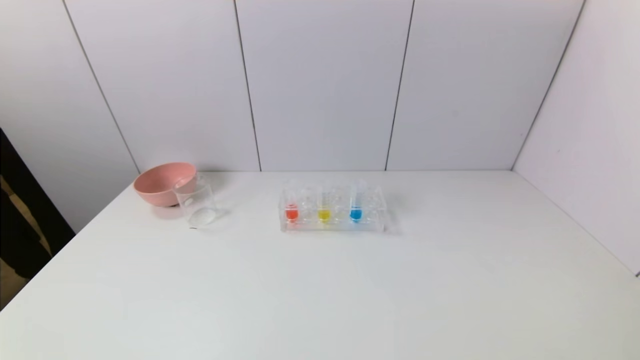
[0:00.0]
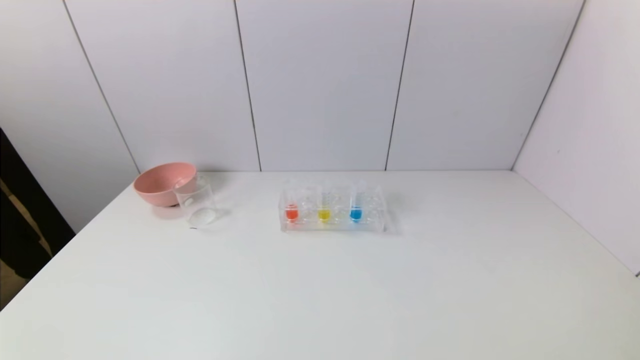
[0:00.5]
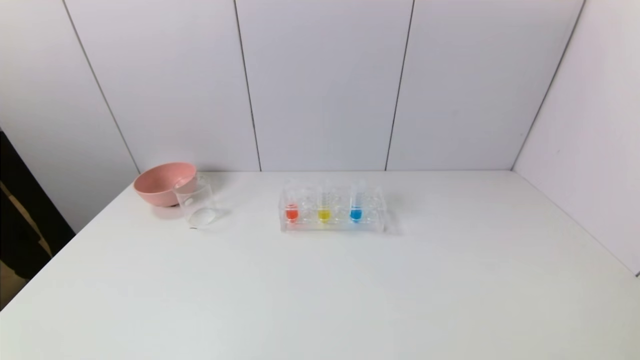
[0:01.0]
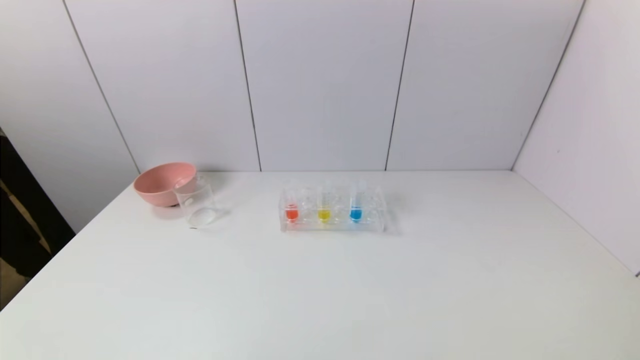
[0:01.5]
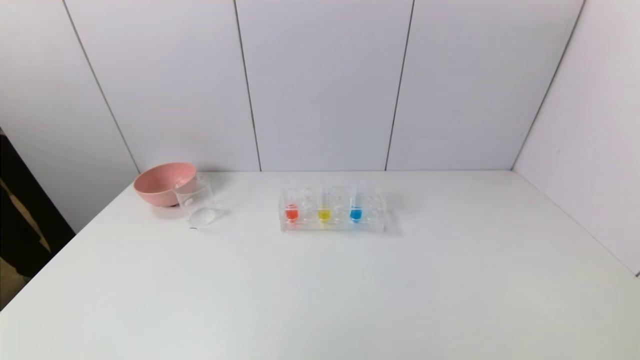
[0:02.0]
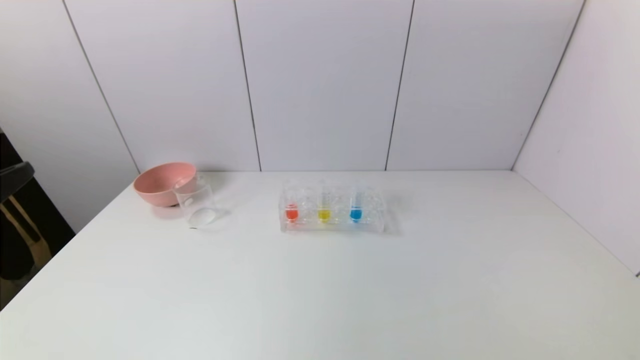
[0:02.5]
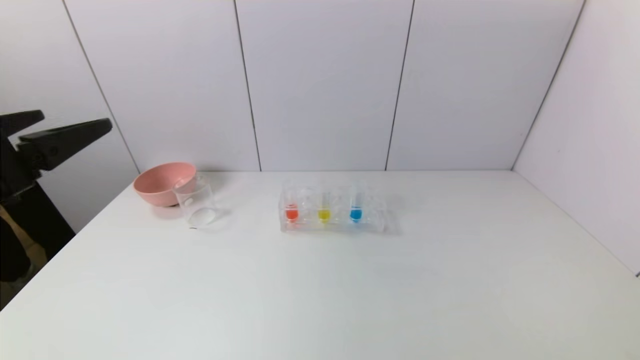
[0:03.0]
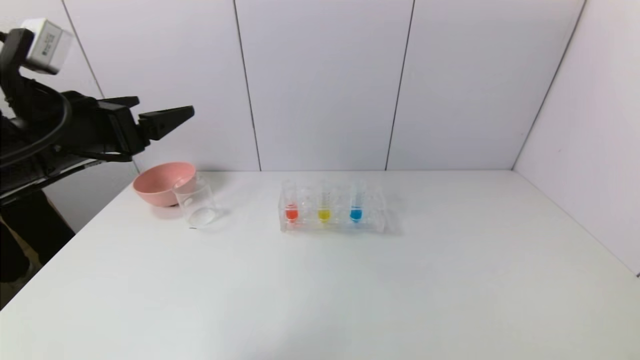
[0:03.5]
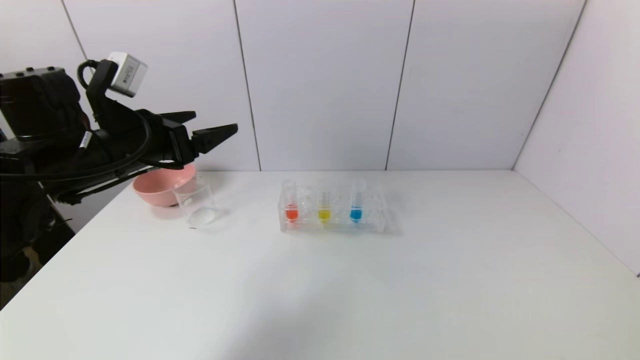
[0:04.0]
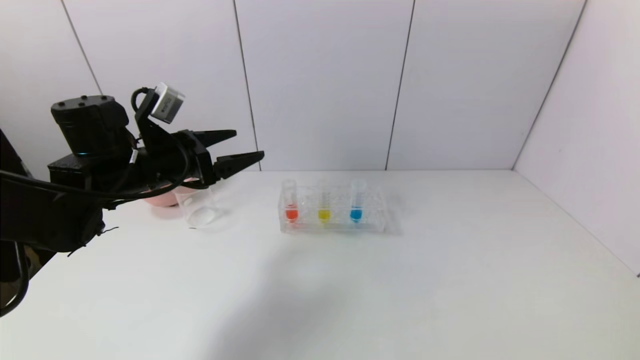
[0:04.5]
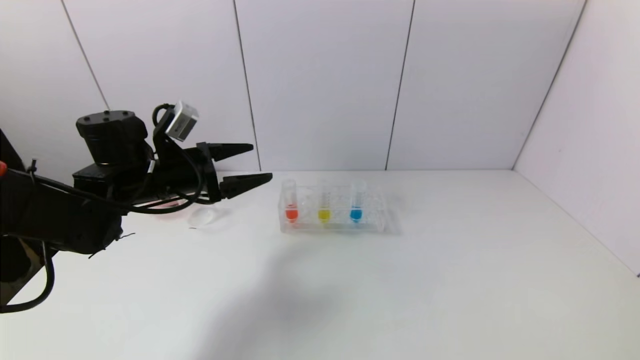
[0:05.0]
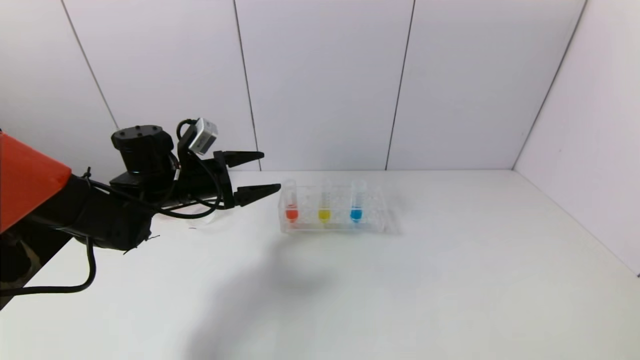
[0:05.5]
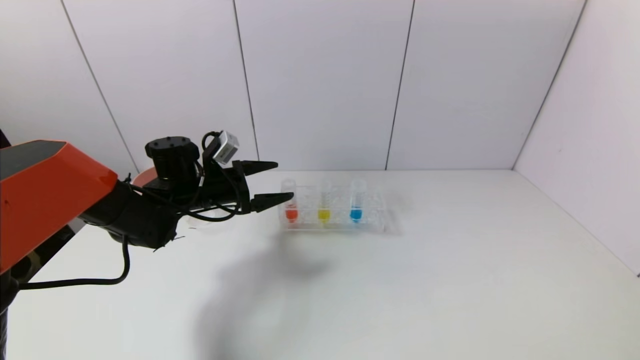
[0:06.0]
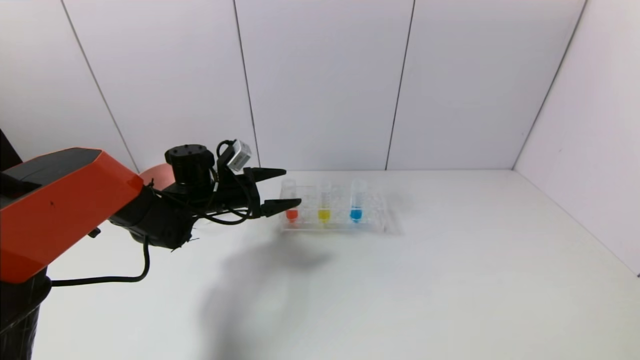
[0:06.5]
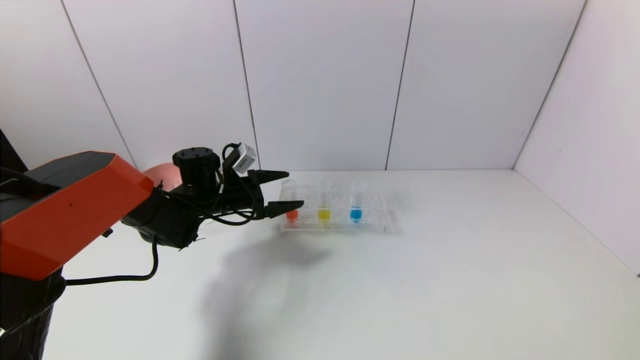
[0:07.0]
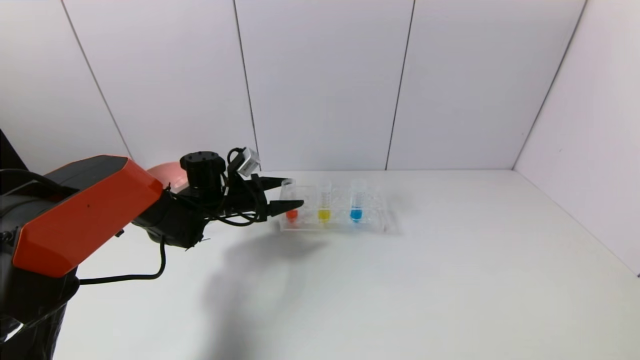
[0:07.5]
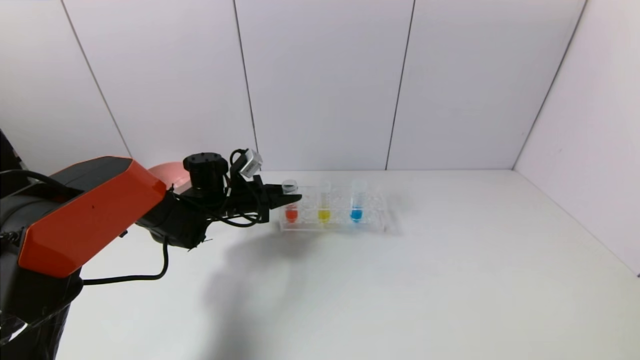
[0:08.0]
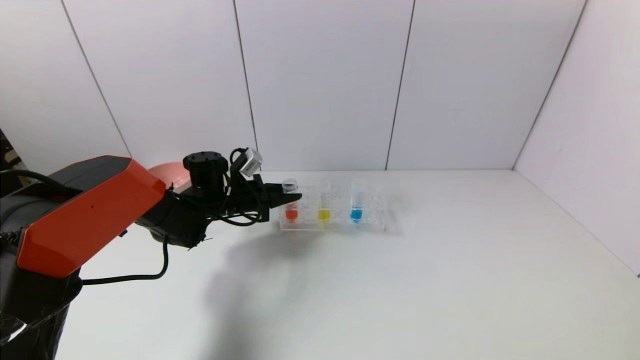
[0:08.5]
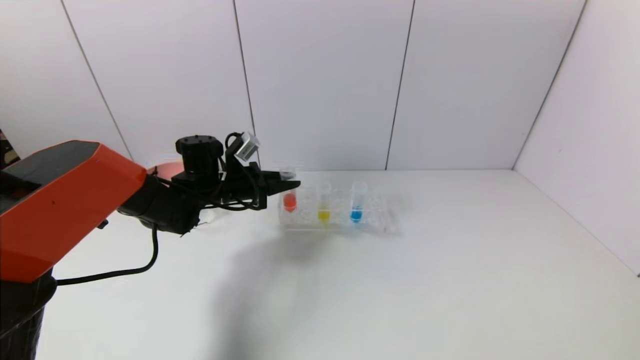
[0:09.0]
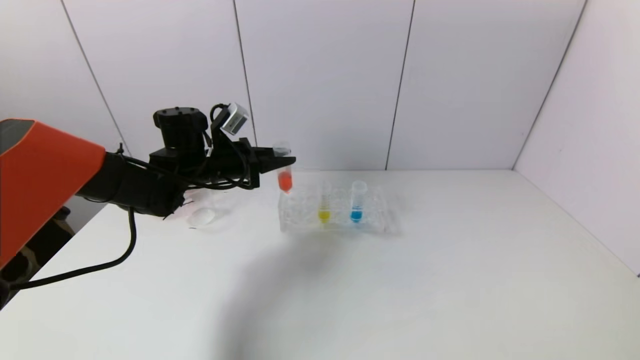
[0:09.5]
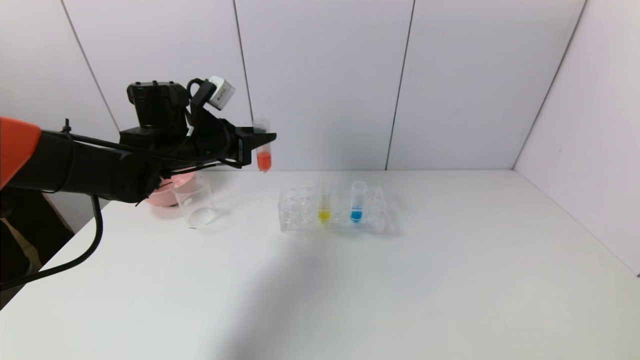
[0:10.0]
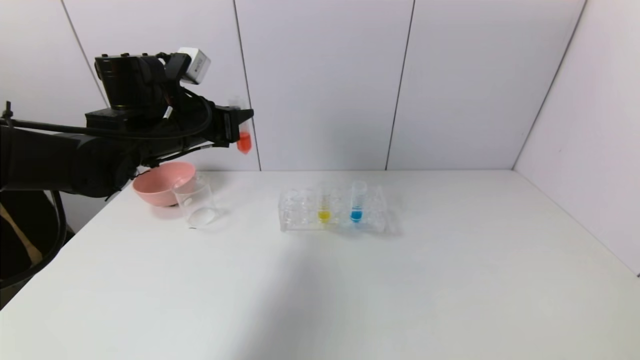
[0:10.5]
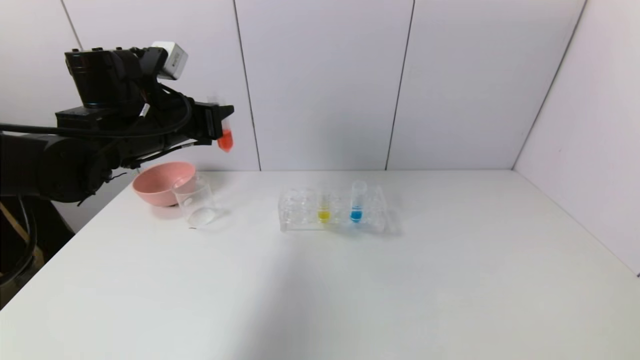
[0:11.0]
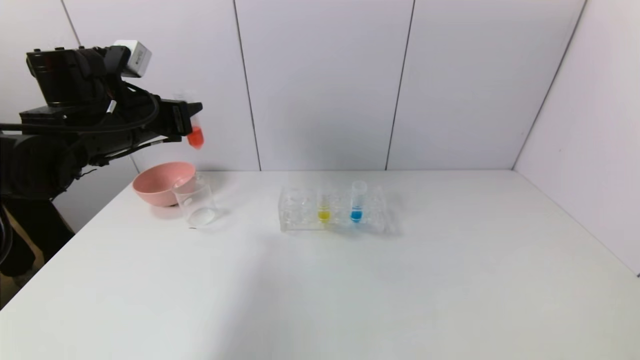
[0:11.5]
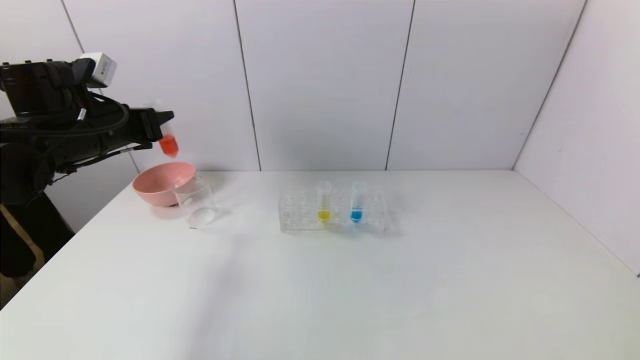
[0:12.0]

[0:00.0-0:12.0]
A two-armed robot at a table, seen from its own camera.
Task of the whole recording: pick up the test tube with red pigment and the test tube with blue pigment by grippers and pour them into the container.
Step, 0.0 to 8.0 s: Grasp the red reagent with the left gripper.
2.0 to 4.0 s: The left gripper goes some 30 cm forward.
4.0 to 6.0 s: The left gripper moves downward and forward, roughly 15 cm.
6.0 to 8.0 s: The left gripper ends up roughly 5 cm from where it was, and closes up.
8.0 to 10.0 s: The left gripper heads upward, covering about 15 cm.
10.0 to 12.0 s: The left gripper goes about 10 cm to the left.

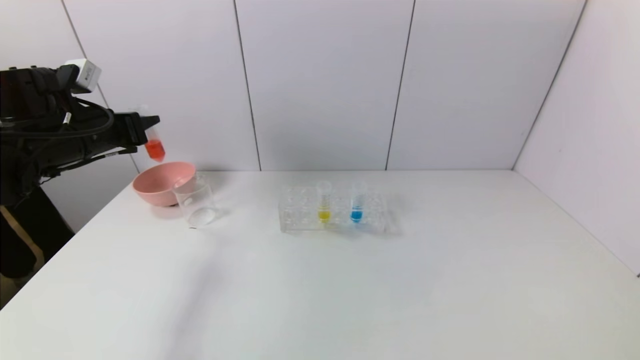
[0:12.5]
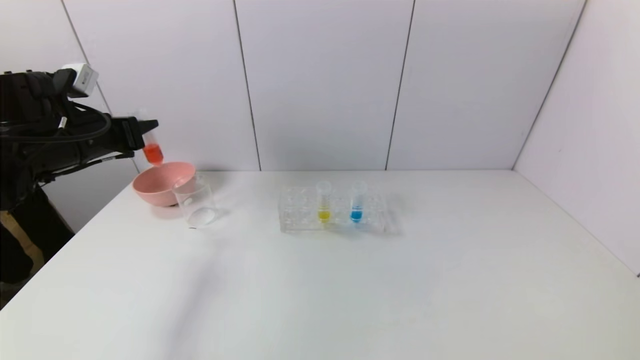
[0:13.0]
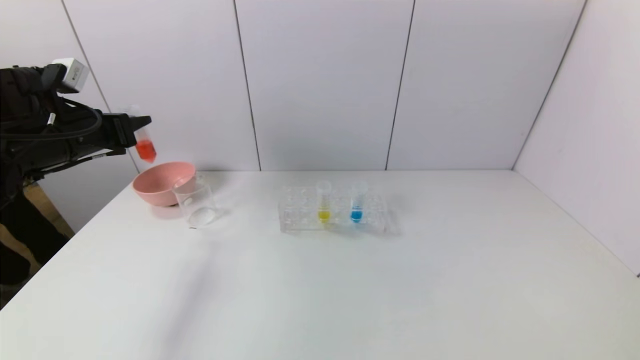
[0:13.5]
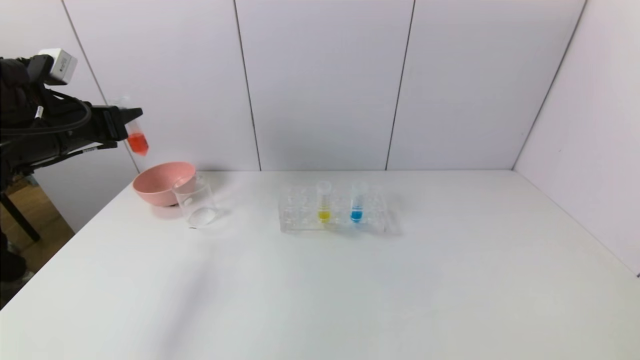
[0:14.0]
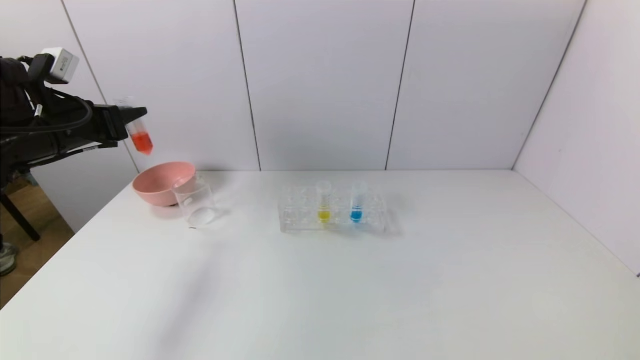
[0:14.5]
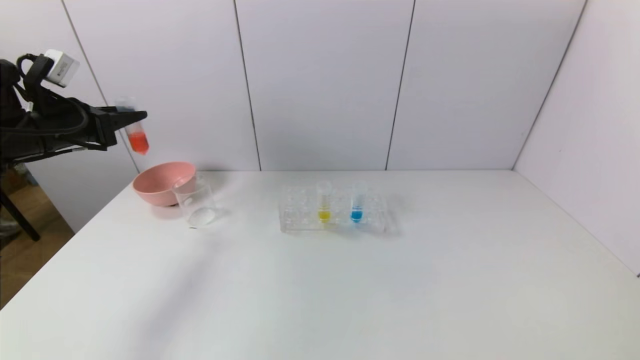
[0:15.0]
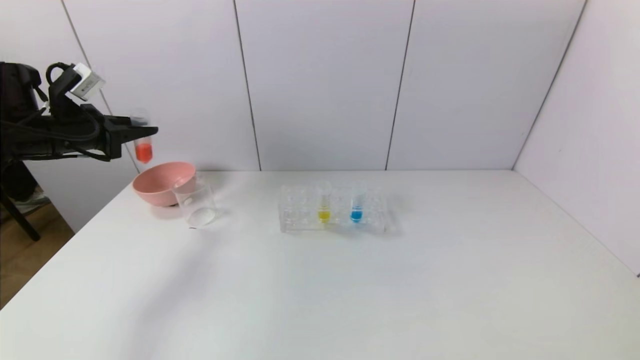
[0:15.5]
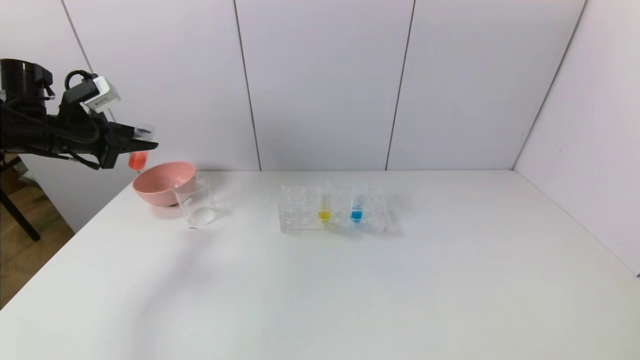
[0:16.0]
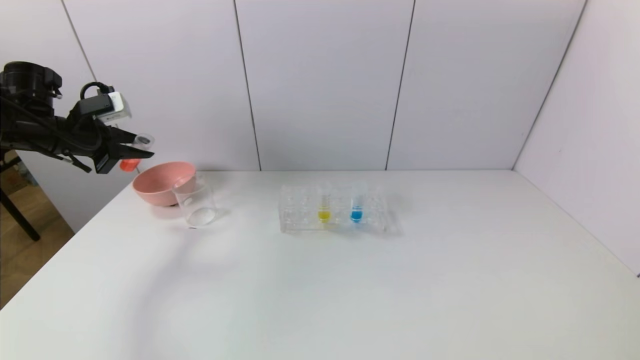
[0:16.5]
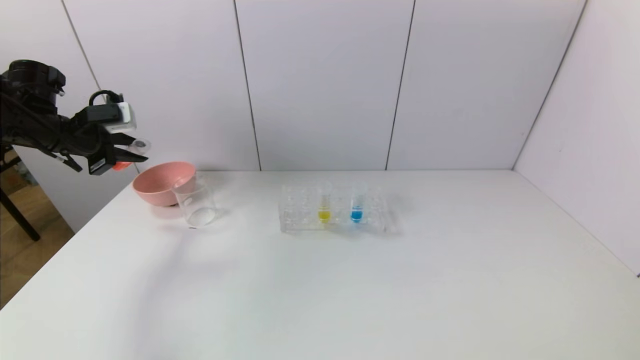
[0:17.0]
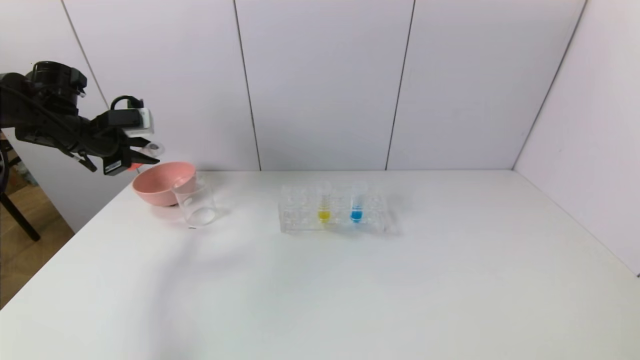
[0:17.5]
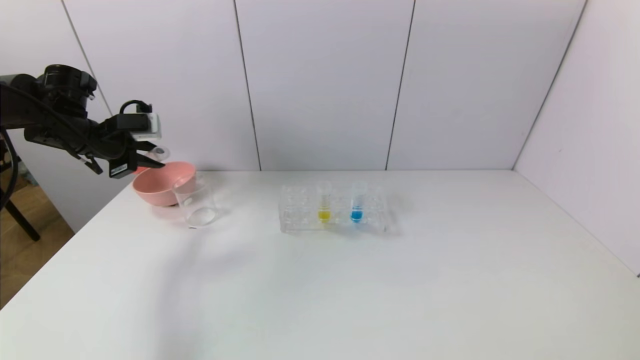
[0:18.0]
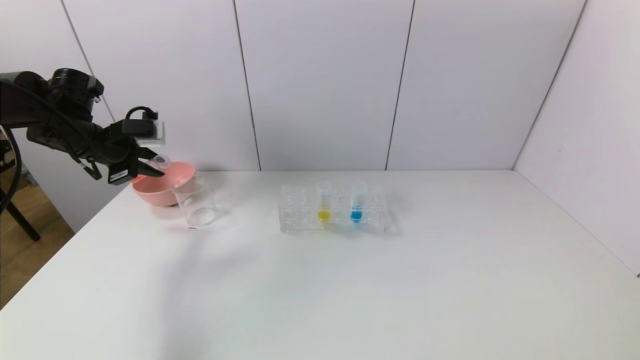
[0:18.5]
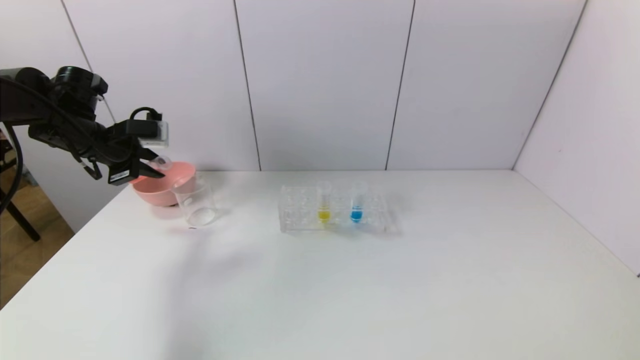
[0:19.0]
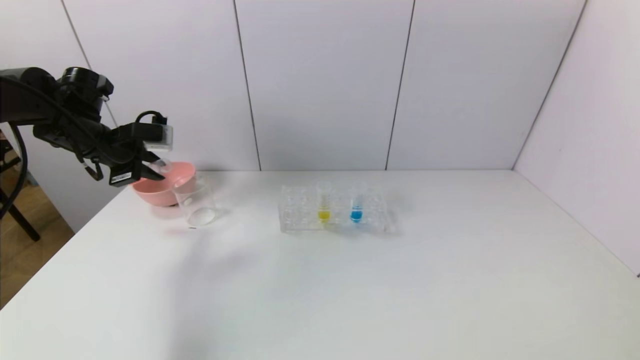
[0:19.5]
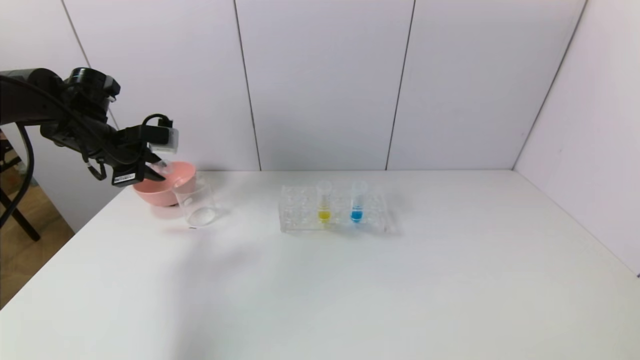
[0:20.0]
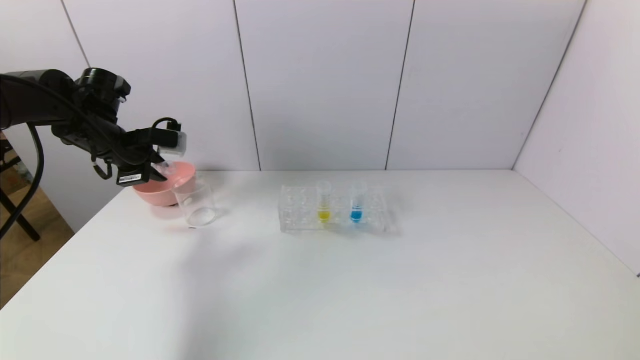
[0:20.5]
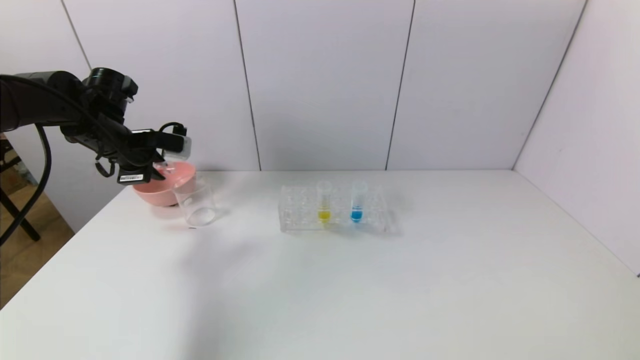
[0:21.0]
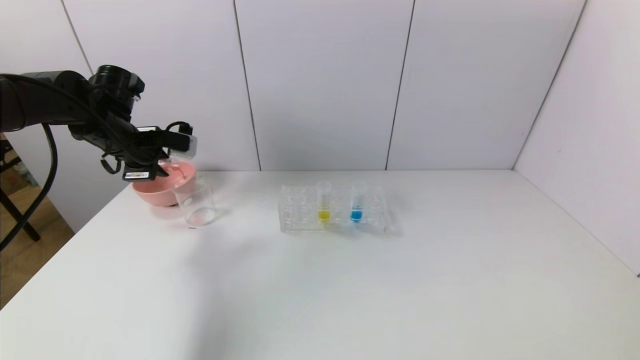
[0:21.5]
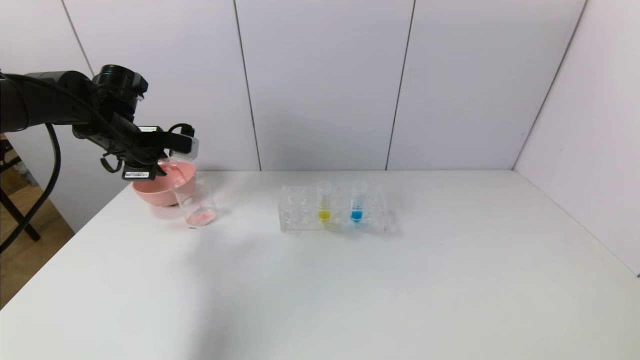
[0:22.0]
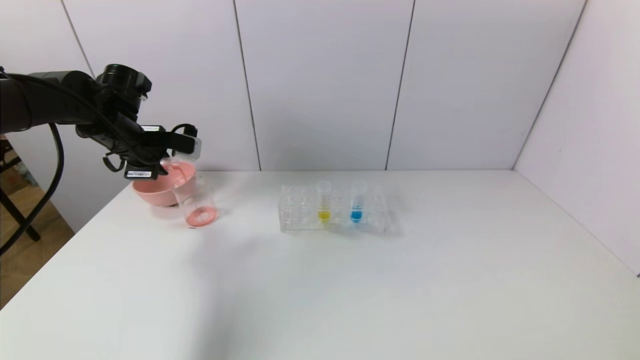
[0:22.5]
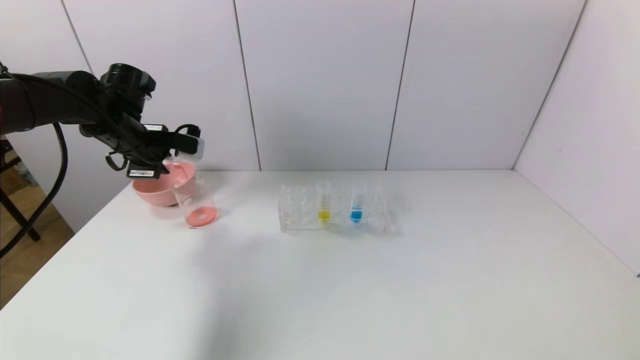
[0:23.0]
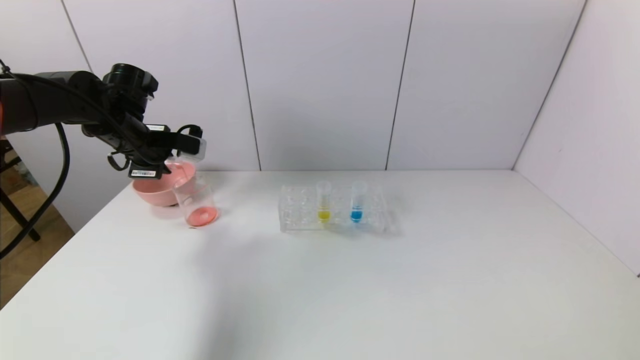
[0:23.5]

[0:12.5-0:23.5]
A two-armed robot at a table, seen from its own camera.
Task of the whole recording: pick up the test tube with red pigment and the test tube with blue pigment by grippers and pour them into the container.
12.5 to 14.5 s: There are only small adjustments of the grippers.
14.5 to 16.0 s: The left gripper changes place by approximately 5 cm.
18.0 to 20.0 s: The grippers stay close to where they were, moving slightly.
20.0 to 23.5 s: The grippers make only small movements.
